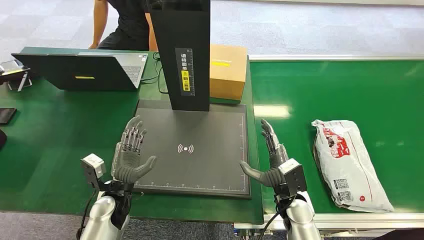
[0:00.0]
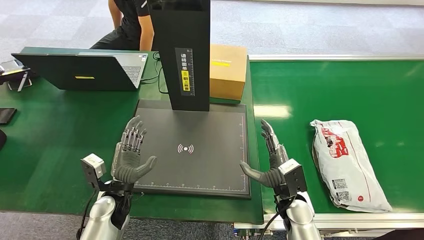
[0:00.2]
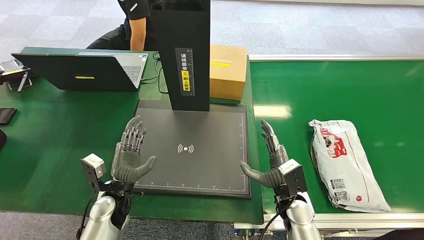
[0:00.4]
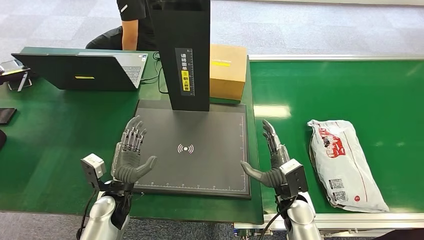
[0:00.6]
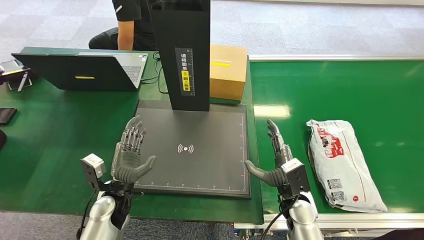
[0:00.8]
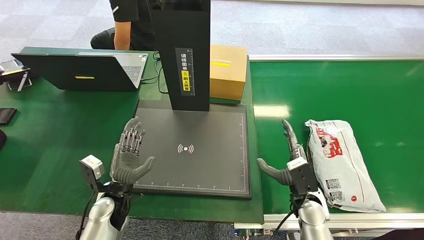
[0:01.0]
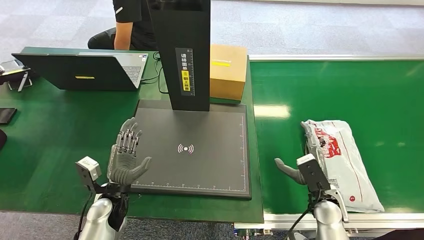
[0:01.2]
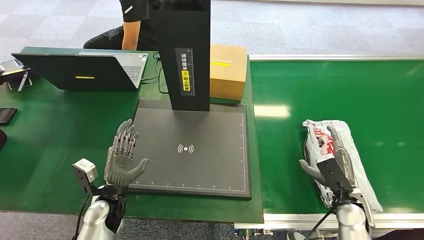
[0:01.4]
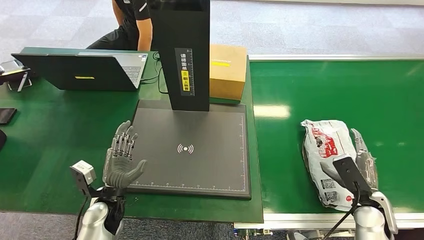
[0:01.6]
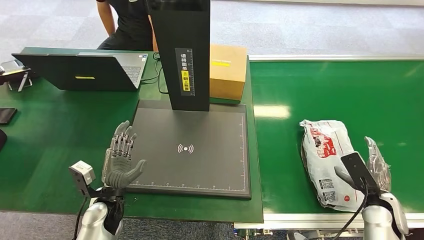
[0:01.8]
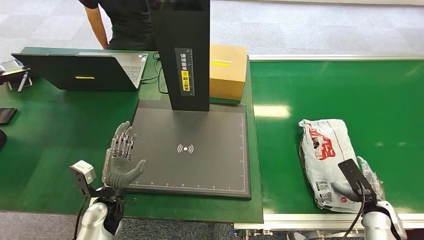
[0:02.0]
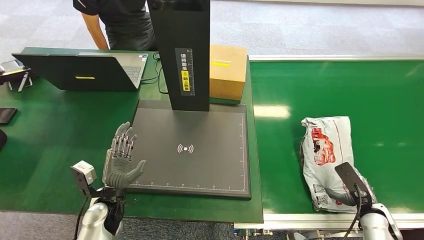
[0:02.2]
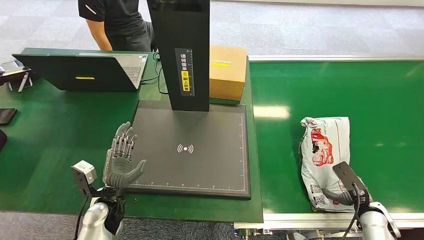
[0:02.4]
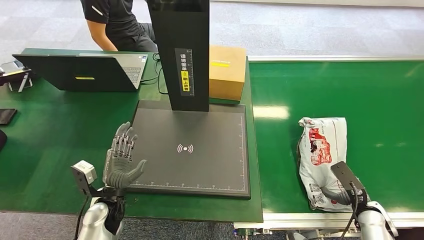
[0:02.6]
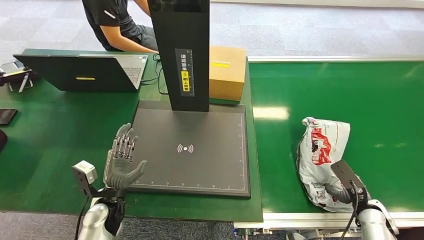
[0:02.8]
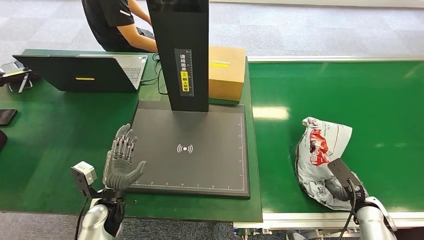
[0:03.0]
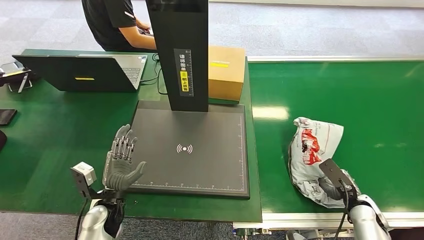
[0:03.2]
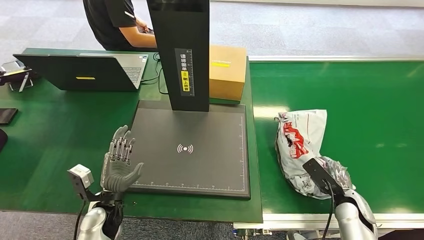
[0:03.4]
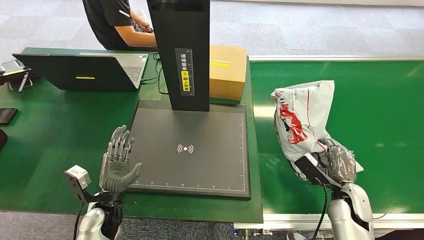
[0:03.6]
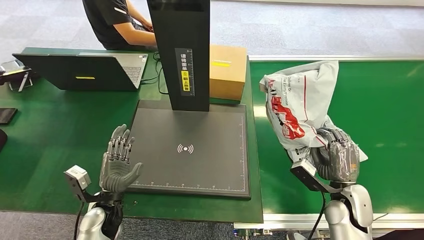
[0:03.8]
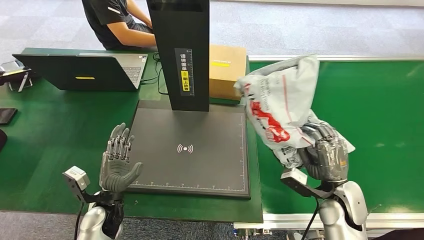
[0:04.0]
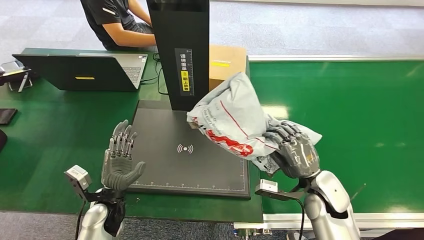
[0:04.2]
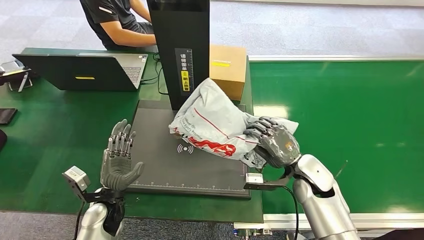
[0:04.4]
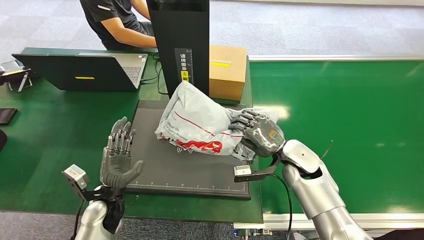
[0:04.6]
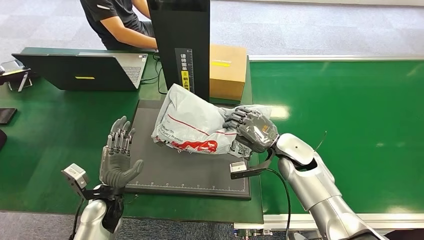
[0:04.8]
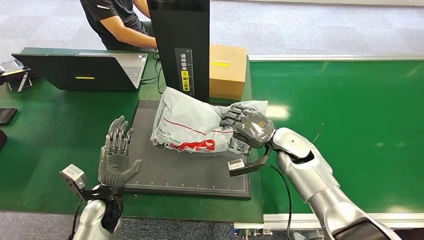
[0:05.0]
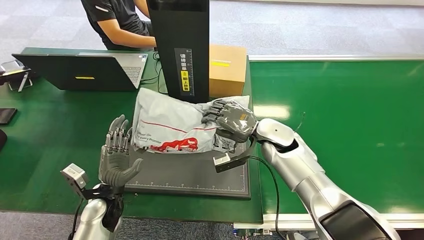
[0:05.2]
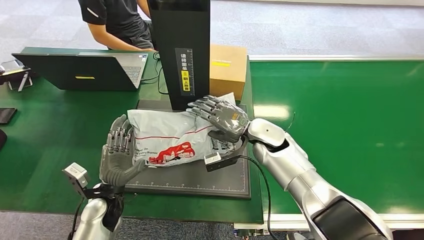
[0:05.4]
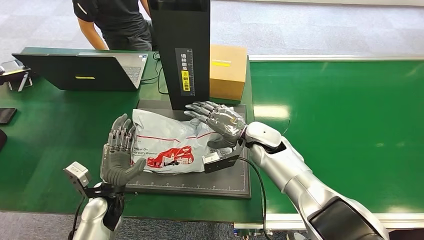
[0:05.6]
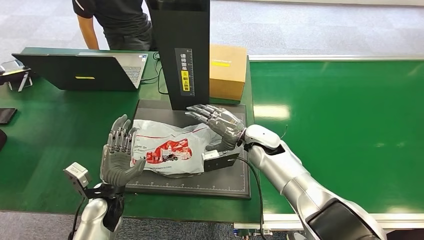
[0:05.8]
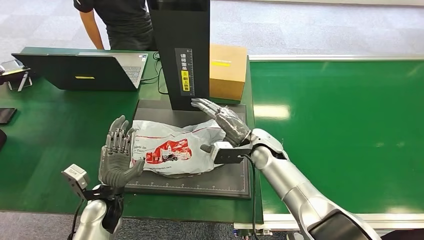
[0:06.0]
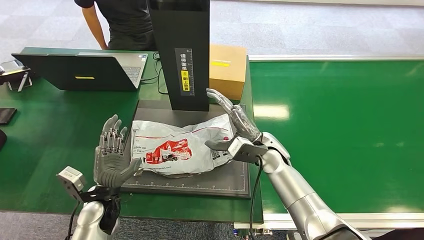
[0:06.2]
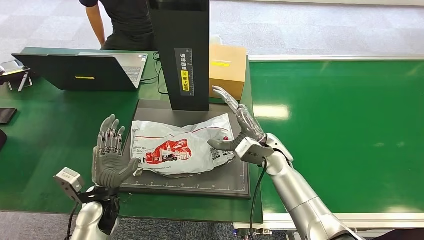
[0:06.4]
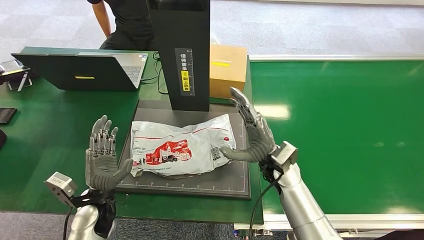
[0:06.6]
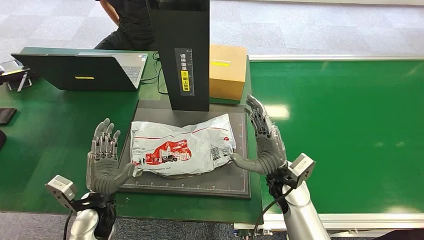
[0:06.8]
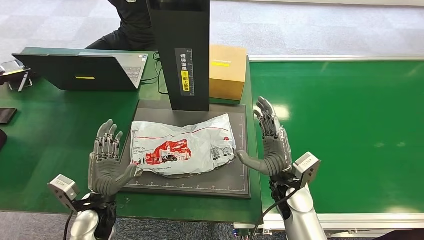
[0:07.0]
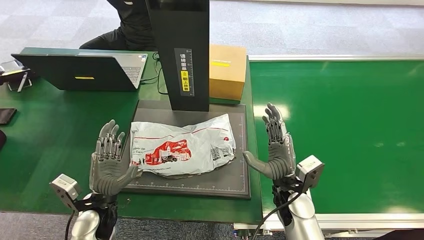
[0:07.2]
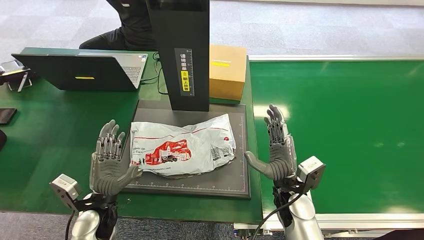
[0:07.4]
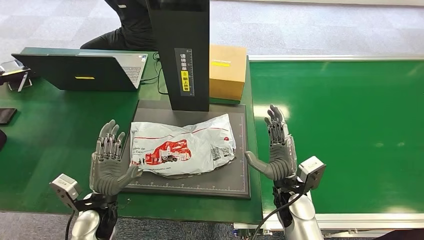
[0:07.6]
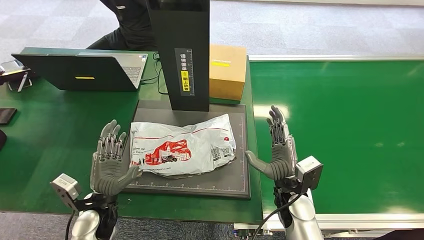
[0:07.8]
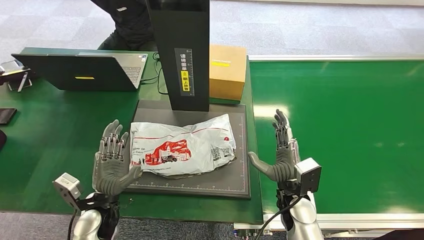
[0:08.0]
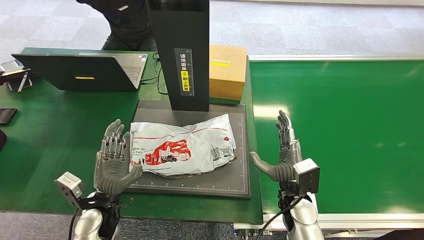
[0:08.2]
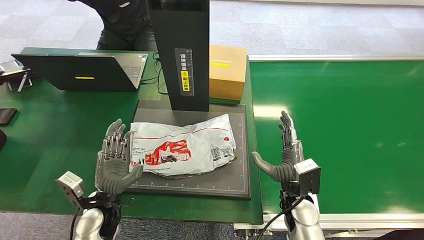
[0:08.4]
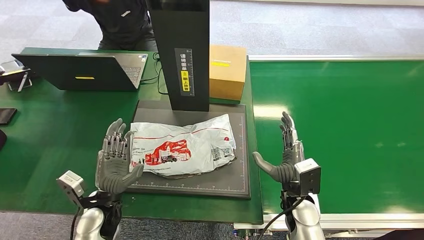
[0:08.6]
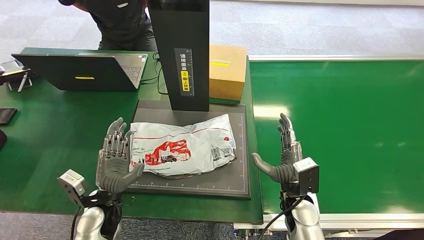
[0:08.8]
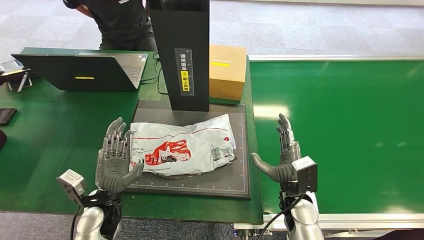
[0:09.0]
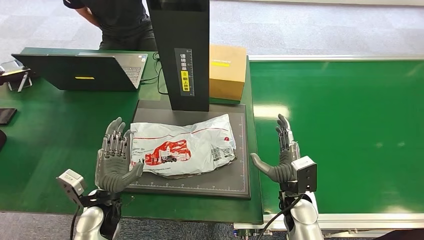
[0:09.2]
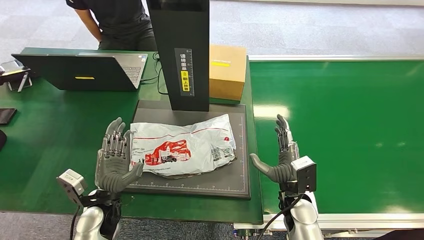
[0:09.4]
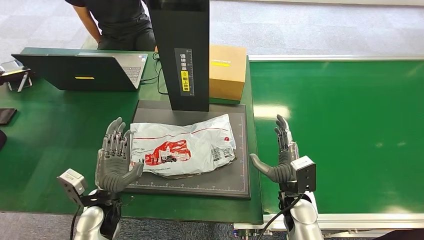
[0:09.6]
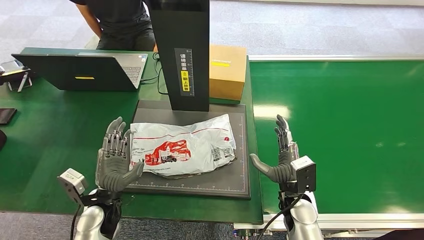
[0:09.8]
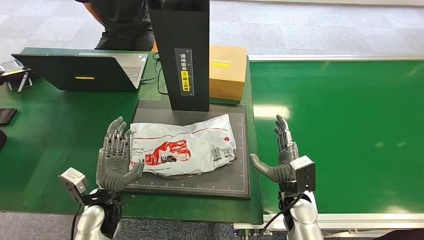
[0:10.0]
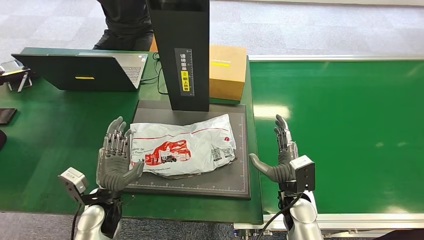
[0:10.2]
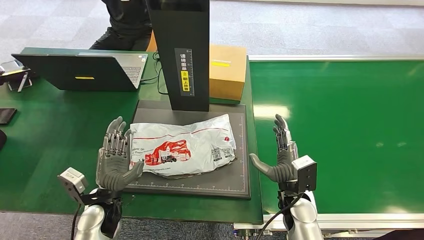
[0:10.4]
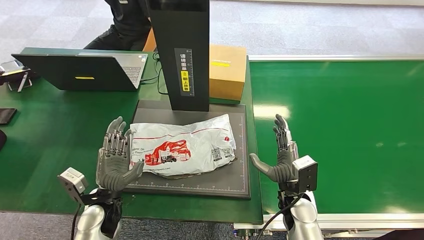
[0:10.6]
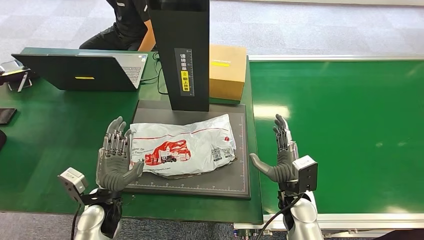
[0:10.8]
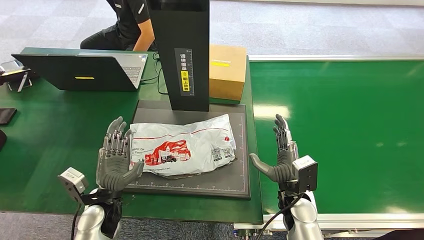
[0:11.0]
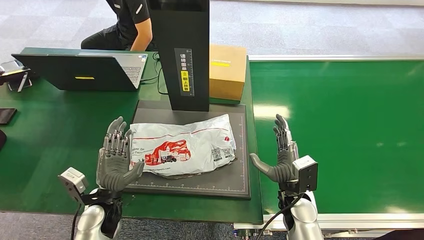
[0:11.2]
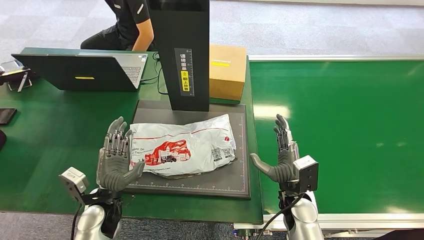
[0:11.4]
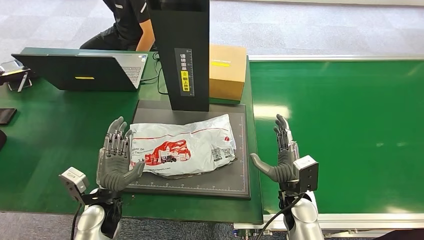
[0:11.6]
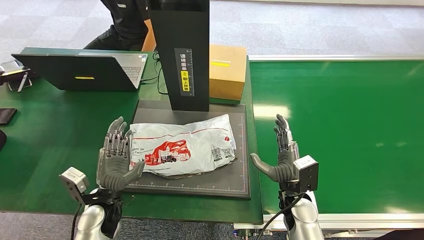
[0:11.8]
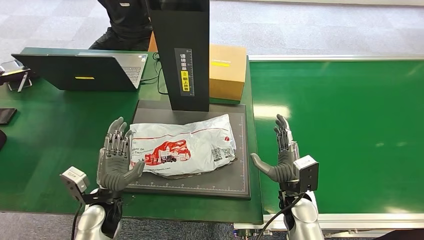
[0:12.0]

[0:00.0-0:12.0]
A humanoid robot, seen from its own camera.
Task of the whole recording: Weigh the package on the weighing device and place it in the left basket.
Step, 0:00.0 to 0:04.0: Pick up the package from the conveyor belt.
Step, 0:04.2 to 0:06.4: Place the package onto the inbound machine.
0:01.6 to 0:03.0: The right hand heads downward, covering approximately 10 cm.
0:06.0 to 0:07.6: The right hand moves backward and to the right, roughly 15 cm.
0:07.6 to 0:09.0: The hands make only small movements.
0:09.0 to 0:12.0: Neither hand changes place.

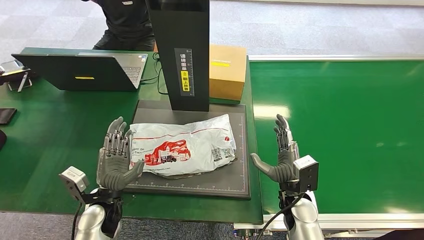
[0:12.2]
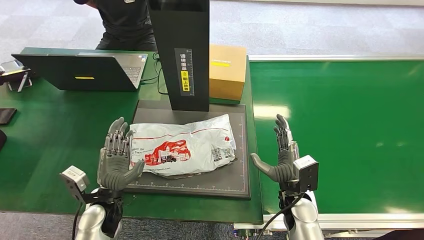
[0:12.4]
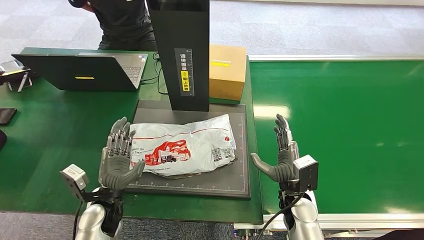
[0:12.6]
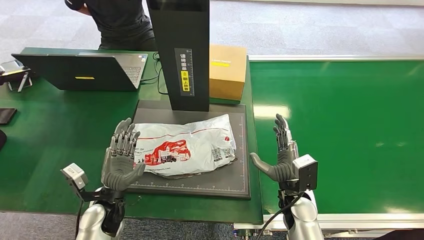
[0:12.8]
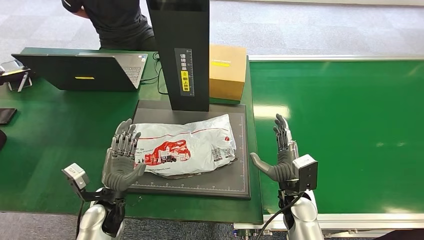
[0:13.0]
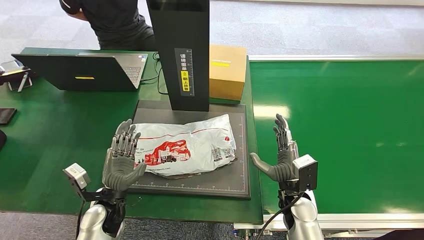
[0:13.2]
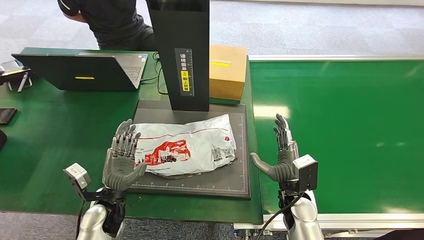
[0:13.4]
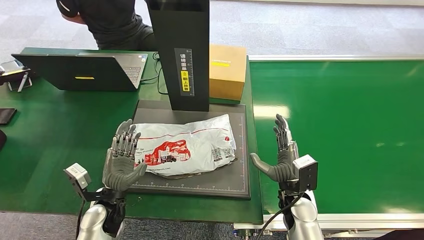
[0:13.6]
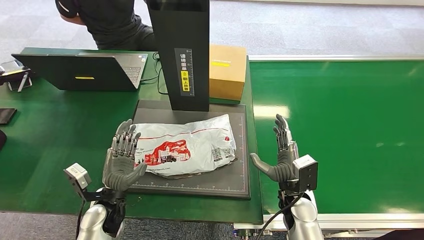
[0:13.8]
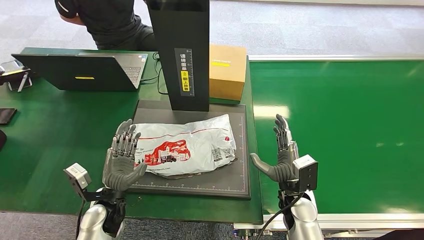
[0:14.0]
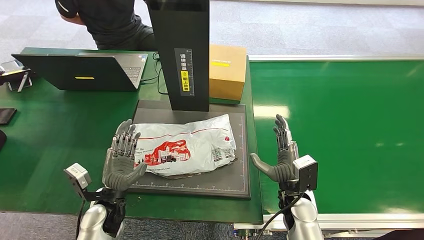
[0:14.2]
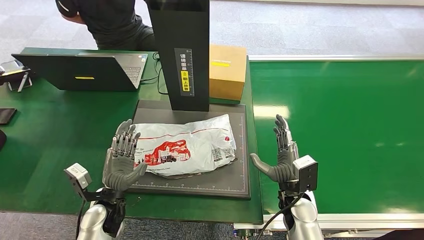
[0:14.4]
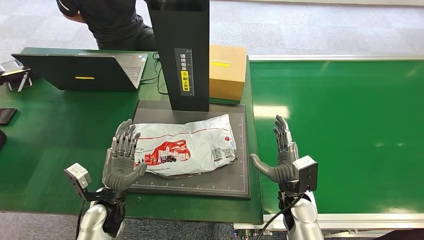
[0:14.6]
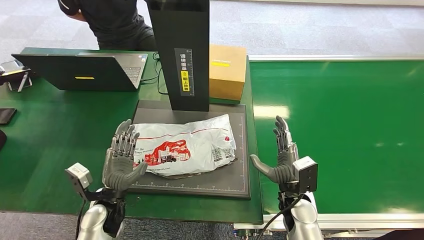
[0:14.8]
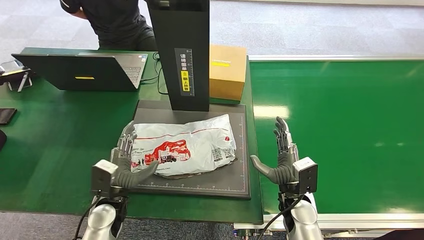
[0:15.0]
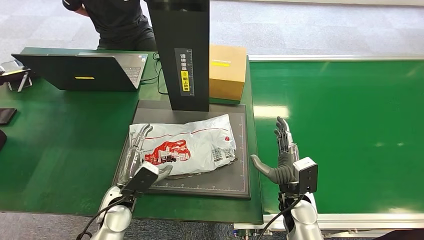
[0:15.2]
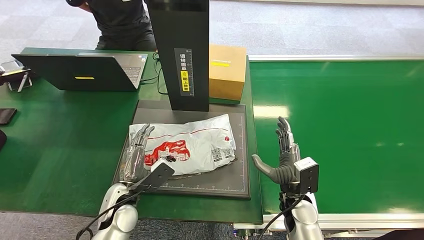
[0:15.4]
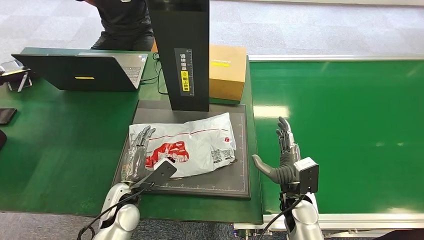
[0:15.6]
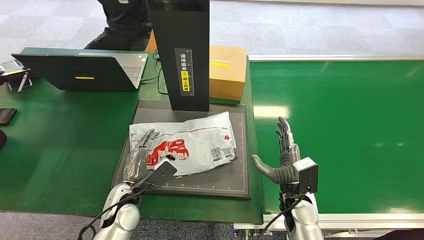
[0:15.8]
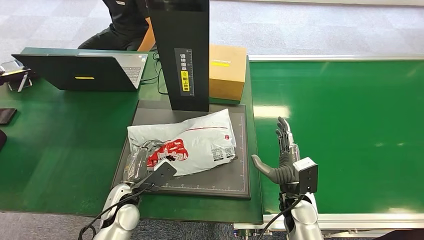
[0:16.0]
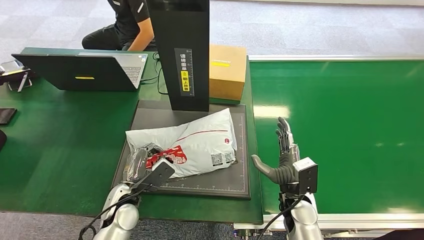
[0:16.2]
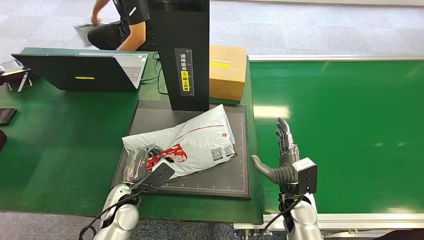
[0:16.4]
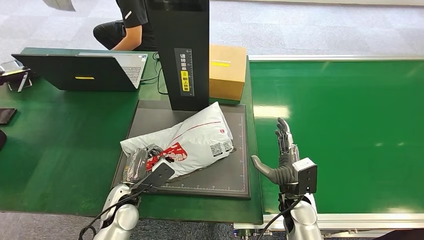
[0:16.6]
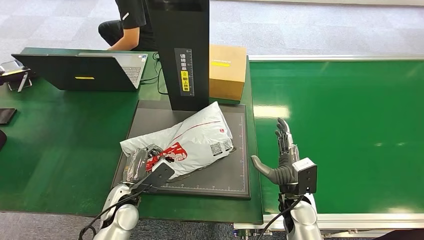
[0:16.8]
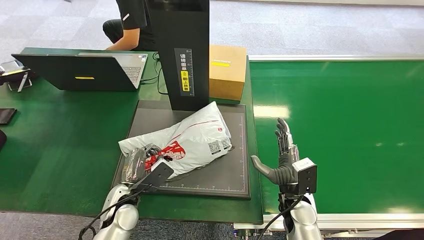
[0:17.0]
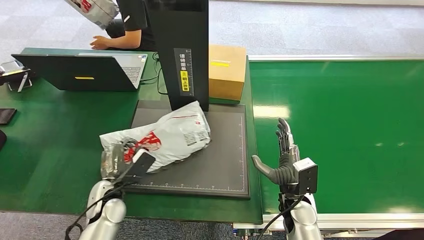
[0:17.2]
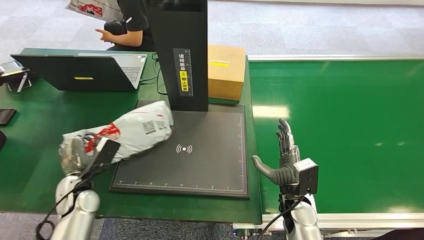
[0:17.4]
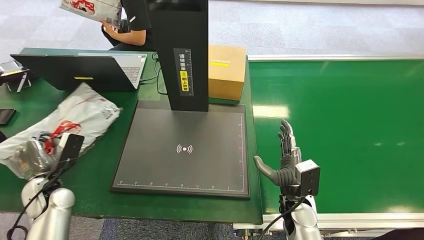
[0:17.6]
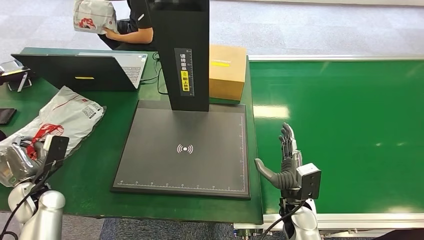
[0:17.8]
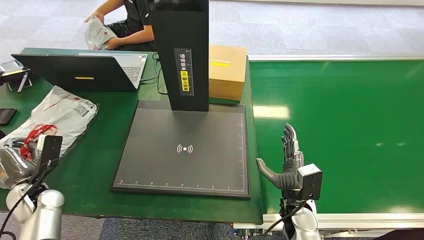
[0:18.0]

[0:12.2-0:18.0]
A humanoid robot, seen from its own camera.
Task of the whole recording: Weigh the package on the weighing device and place it in the left basket.
Step, 0:12.2 to 0:17.0: Pick up the package from the inbound machine.
0:12.2 to 0:13.6: The hands stay close to where they were, moving slightly.
